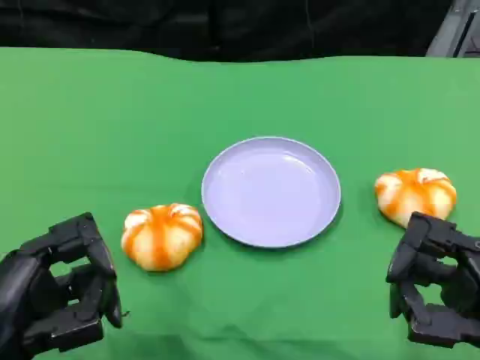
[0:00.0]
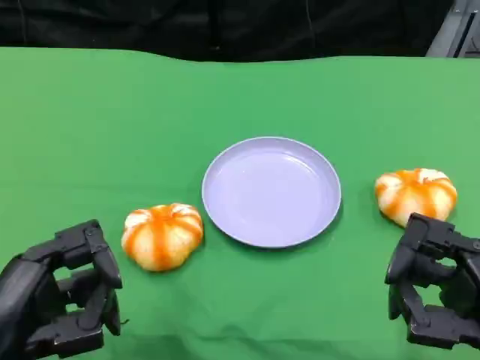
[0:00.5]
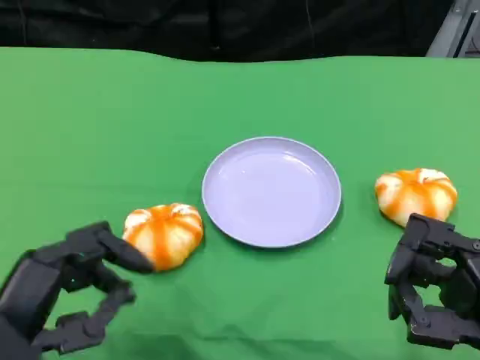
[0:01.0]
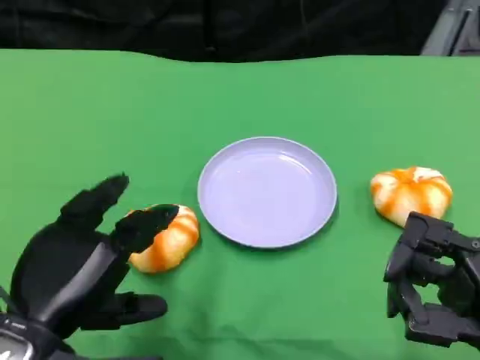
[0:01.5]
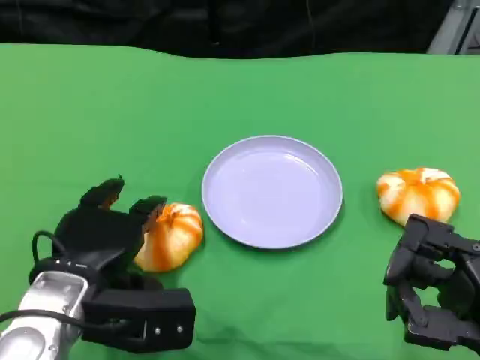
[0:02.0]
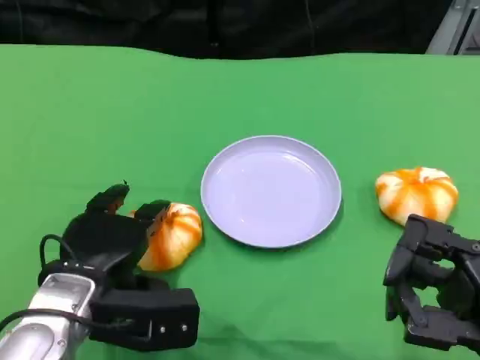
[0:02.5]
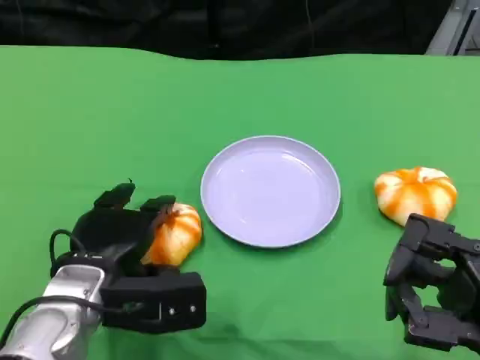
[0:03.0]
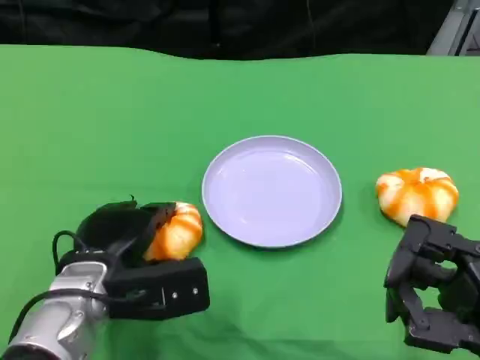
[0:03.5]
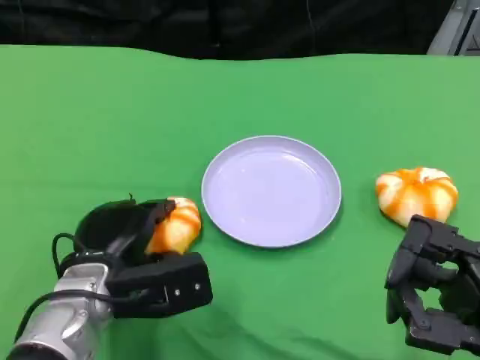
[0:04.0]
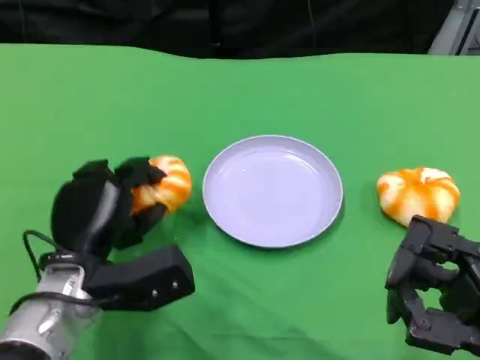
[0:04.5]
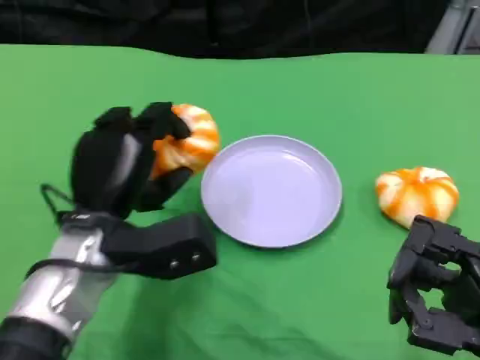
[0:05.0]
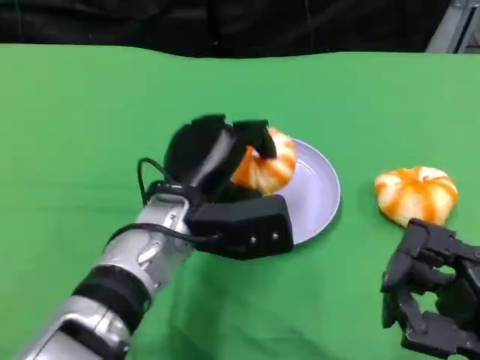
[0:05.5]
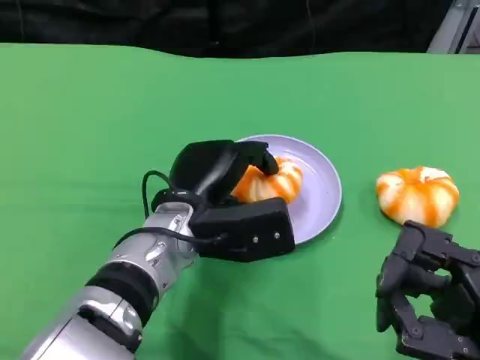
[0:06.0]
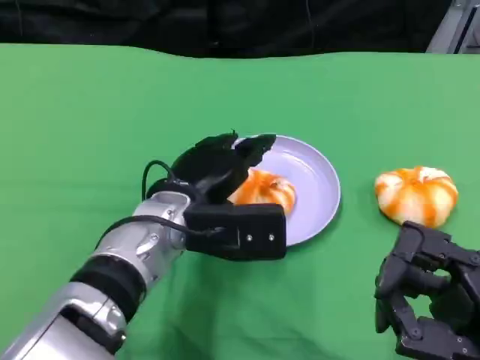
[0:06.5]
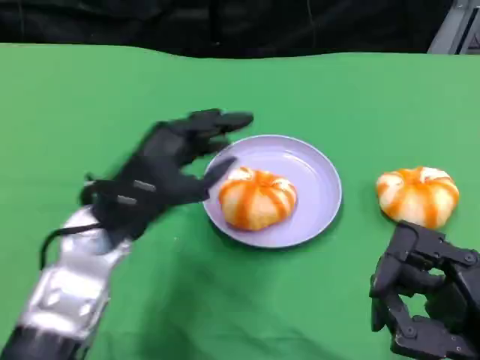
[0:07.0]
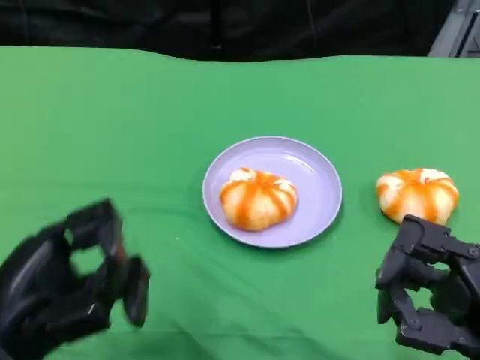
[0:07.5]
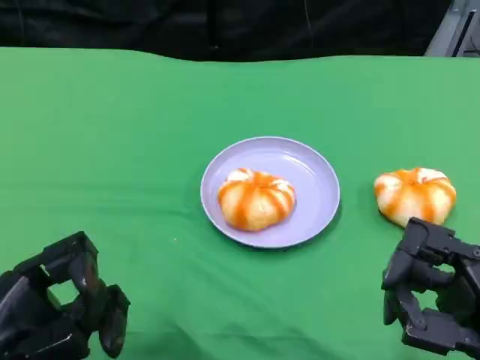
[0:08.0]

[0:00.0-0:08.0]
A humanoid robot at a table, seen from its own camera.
Task of the whole recording: Grasp the bread from the table and place it into the plate.
0:00.0 to 0:02.0: The left hand moves forward and to the right, some 10 cm.
0:02.0 to 0:04.0: There are only small adjustments of the hands.
0:04.0 to 0:06.0: The left hand travels to the right by roughly 10 cm.
0:06.0 to 0:08.0: The left hand heads to the left and backward, covering about 25 cm.

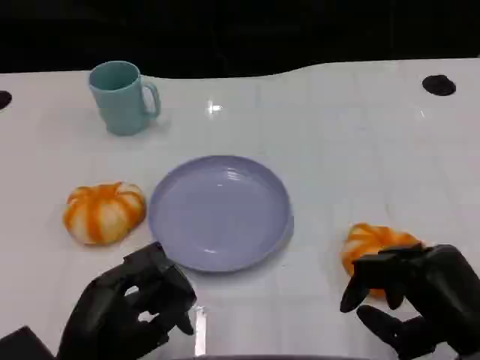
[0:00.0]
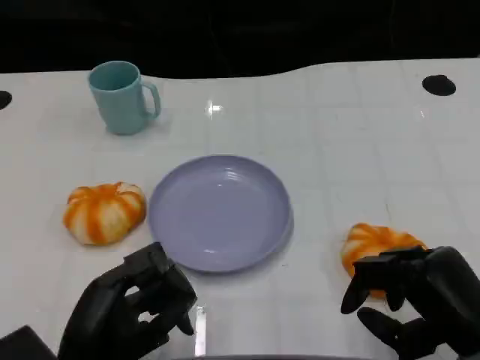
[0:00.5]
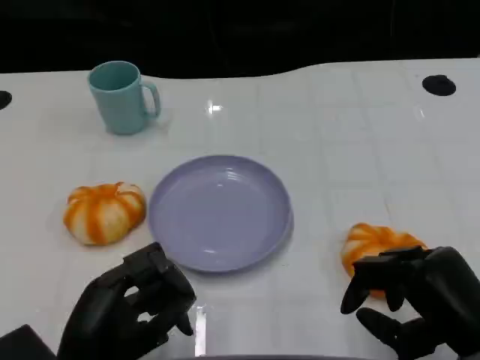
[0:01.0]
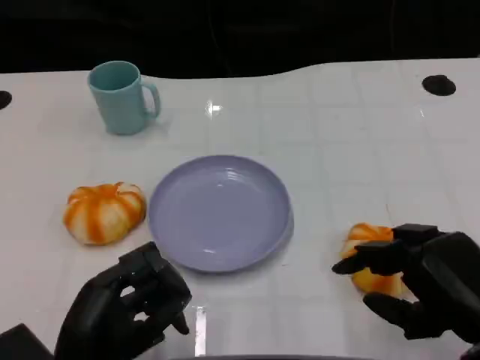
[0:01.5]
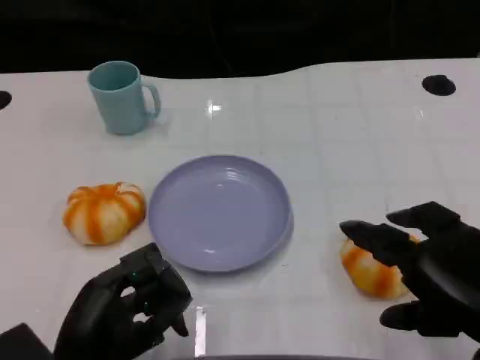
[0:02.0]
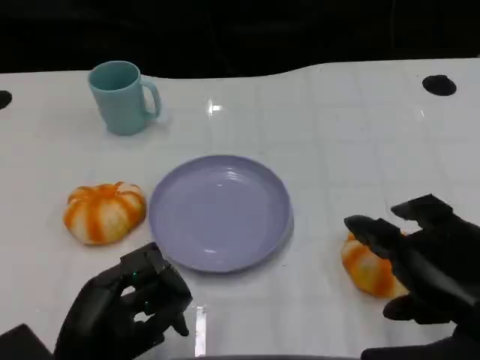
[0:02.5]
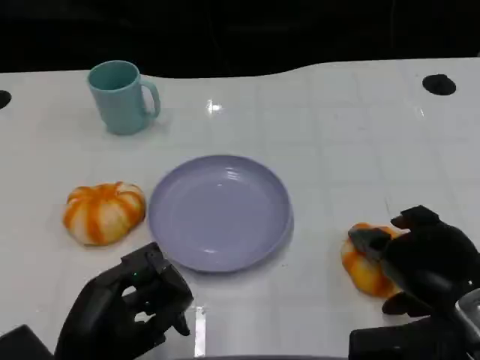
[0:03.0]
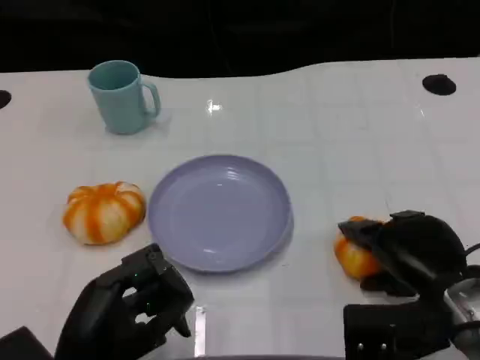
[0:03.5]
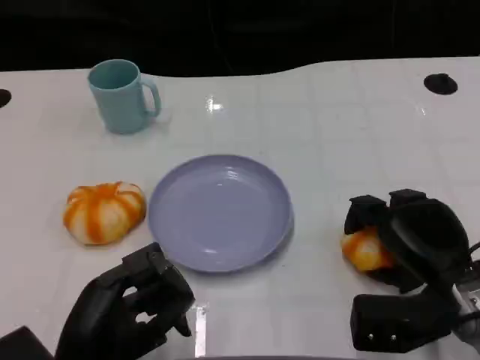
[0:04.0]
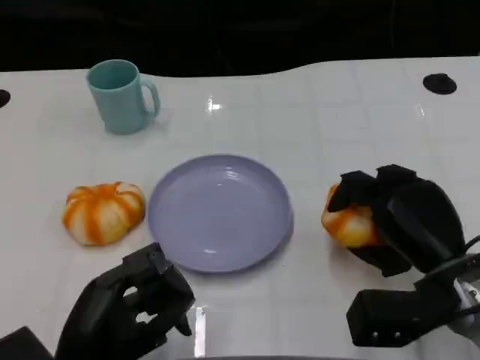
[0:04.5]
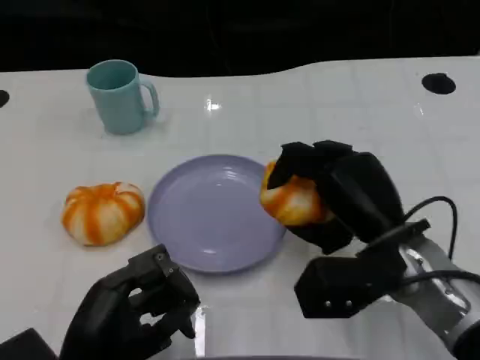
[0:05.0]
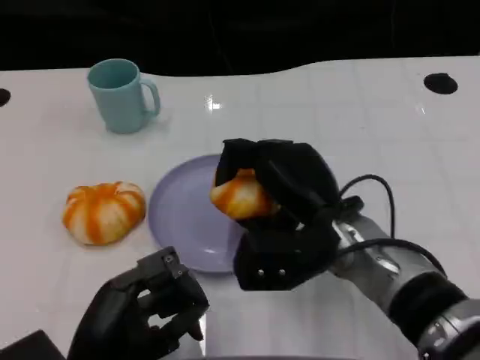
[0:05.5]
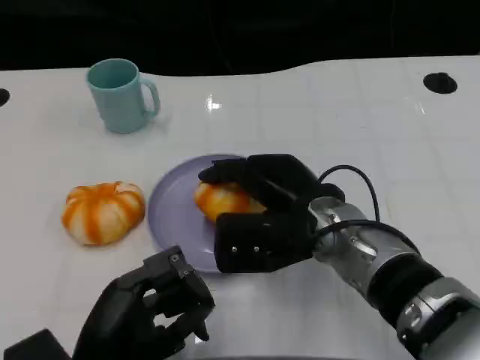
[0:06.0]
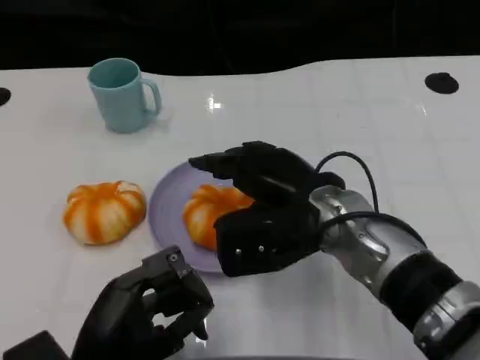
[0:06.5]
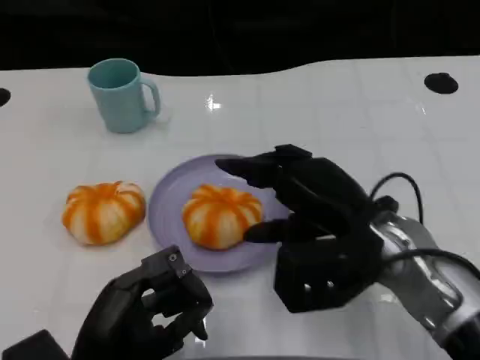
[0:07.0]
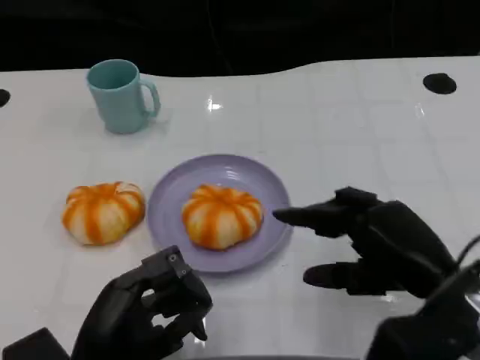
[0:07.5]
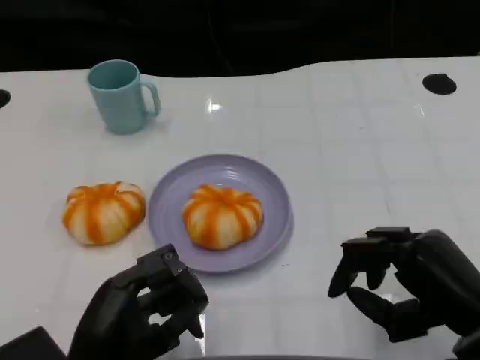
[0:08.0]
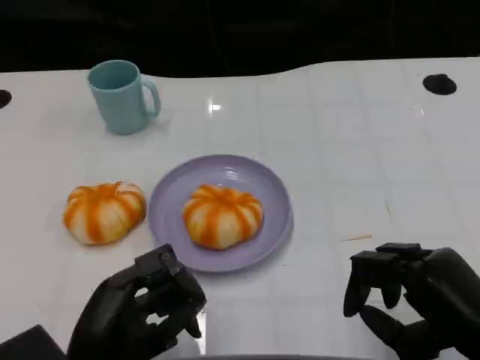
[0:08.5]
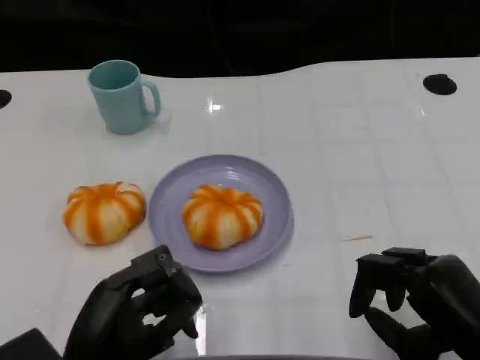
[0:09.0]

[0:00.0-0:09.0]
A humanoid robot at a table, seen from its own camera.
Task of the whole recording: Grasp the bread from the table and place it into the plate.
0:00.0 to 0:02.0: The right hand moves upward, approximately 10 cm.
0:02.0 to 0:04.5: The right hand goes some 10 cm forward and downward.
0:04.5 to 0:07.0: The right hand shifts roughly 10 cm to the left and upward.
0:07.0 to 0:09.0: The right hand heads to the right, backward and downward, covering approximately 15 cm.

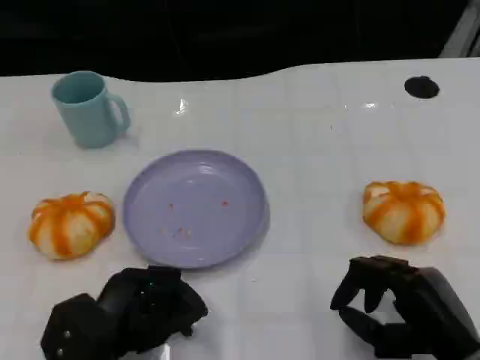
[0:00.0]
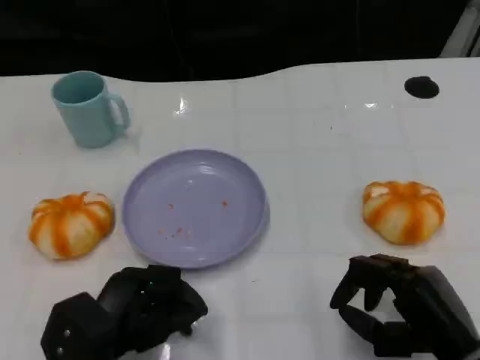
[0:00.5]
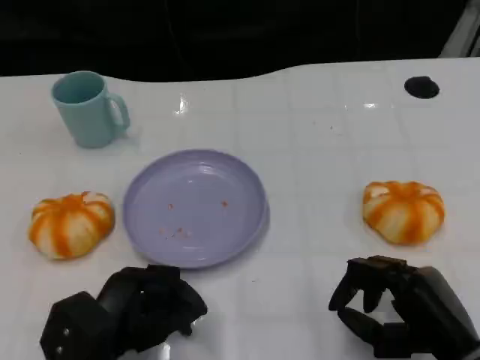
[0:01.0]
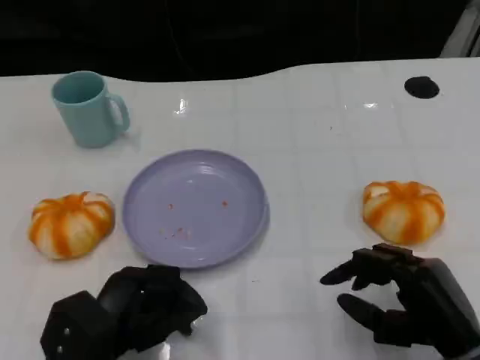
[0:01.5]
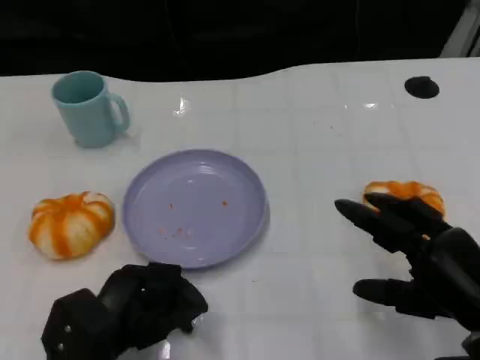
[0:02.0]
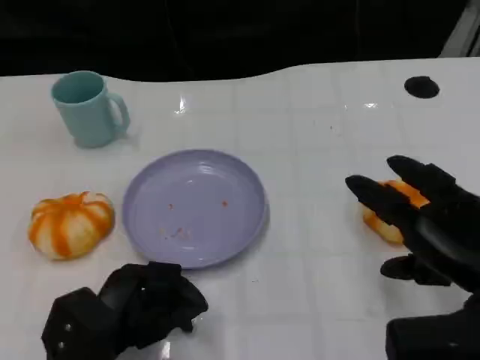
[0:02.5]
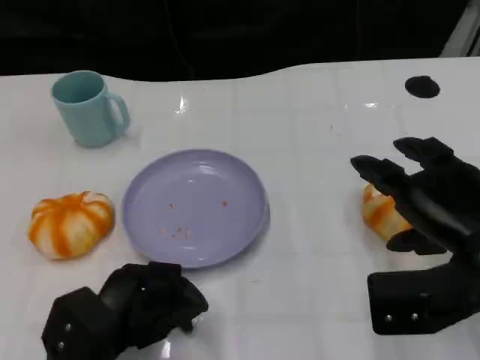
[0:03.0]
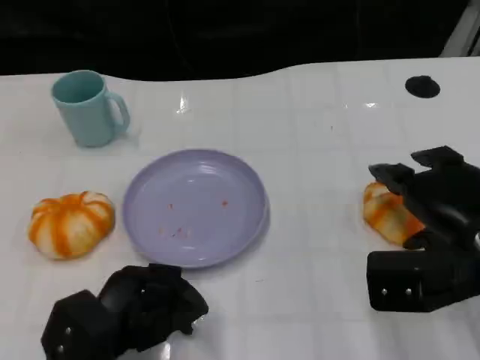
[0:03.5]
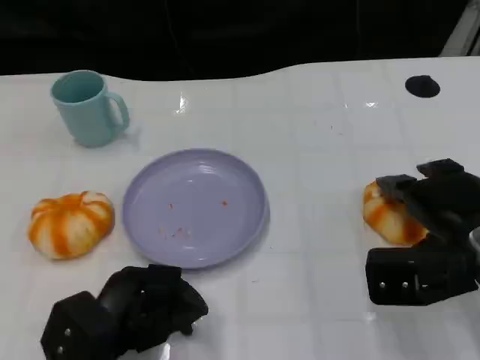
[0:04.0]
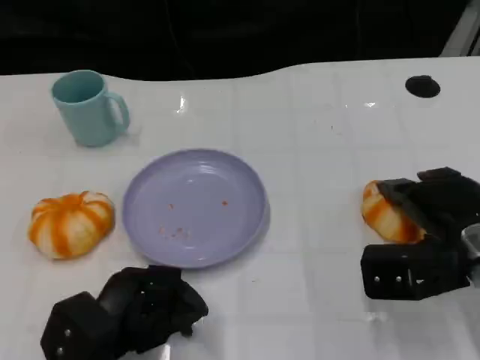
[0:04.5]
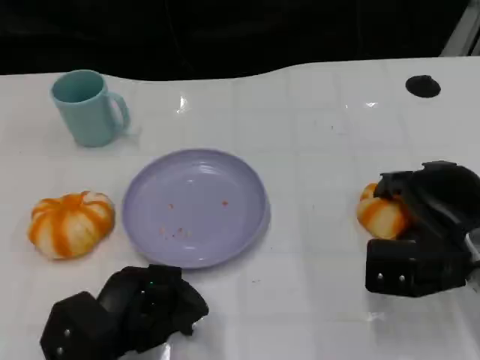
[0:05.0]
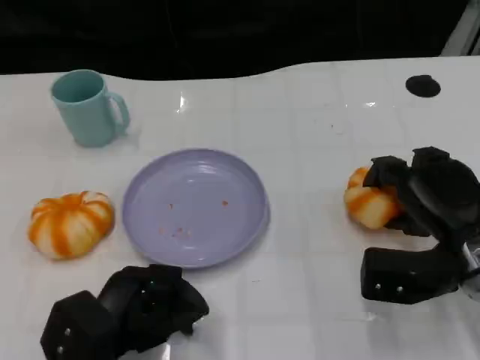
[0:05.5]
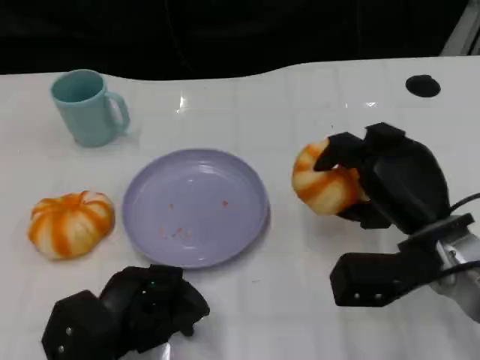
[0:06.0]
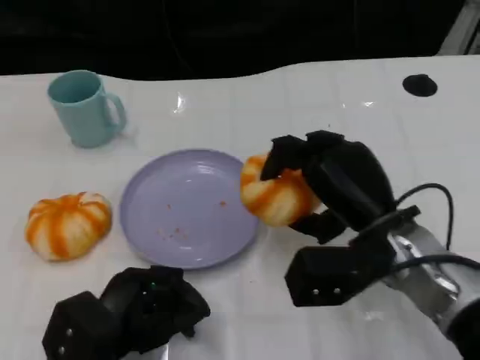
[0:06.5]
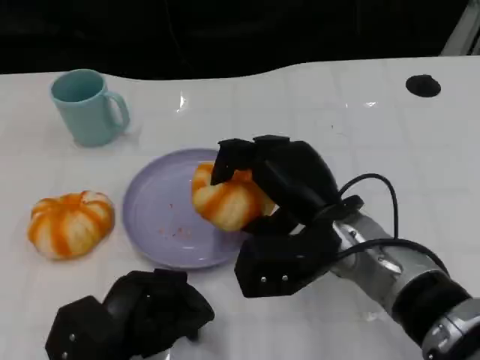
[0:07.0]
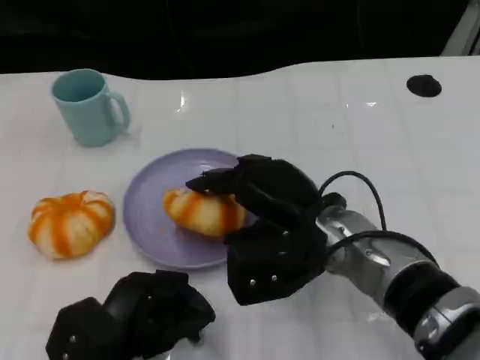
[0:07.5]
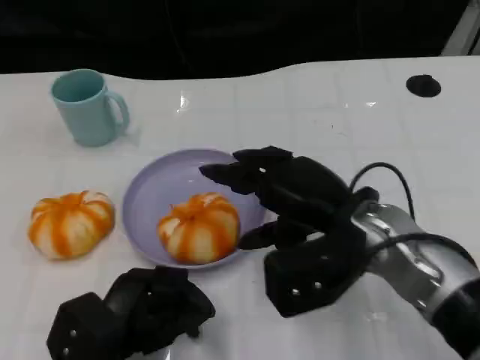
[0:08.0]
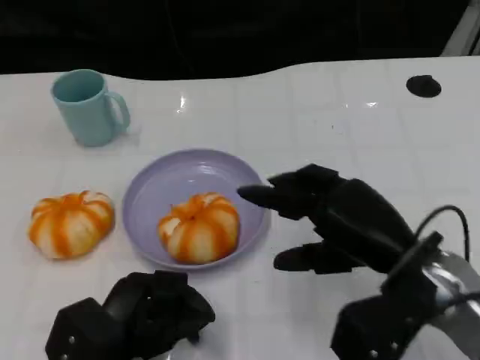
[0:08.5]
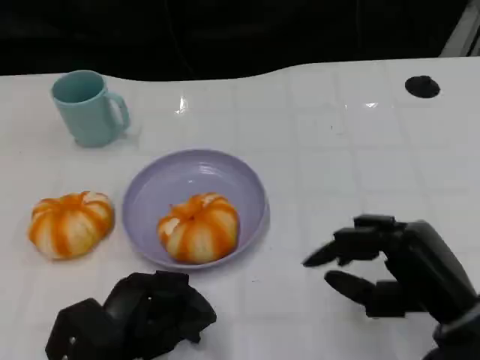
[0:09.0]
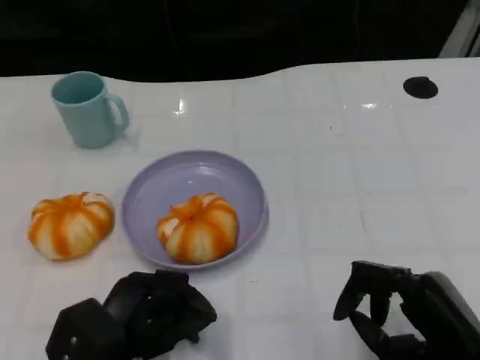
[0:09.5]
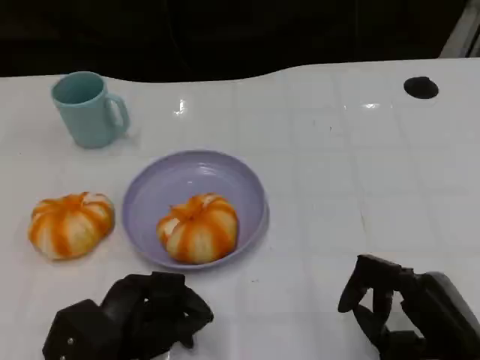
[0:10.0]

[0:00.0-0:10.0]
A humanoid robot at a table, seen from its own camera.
Task of the whole recording: Grasp the bread from the table and place it into the plate.
0:00.0 to 0:02.0: The right hand shifts by about 5 cm.
0:02.0 to 0:04.0: The right hand shifts some 10 cm forward.
0:06.0 to 0:08.0: The right hand is displaced to the left by about 5 cm.
0:08.0 to 0:10.0: The right hand travels backward, to the right and downward by some 15 cm.
